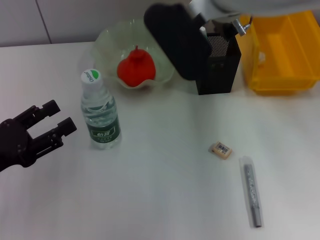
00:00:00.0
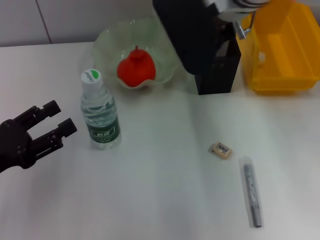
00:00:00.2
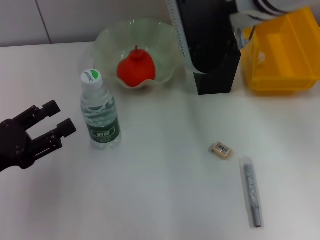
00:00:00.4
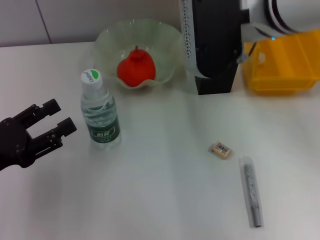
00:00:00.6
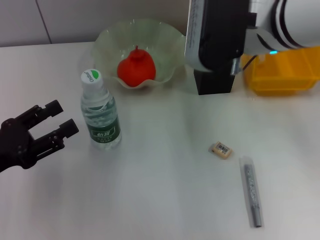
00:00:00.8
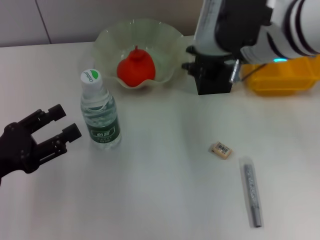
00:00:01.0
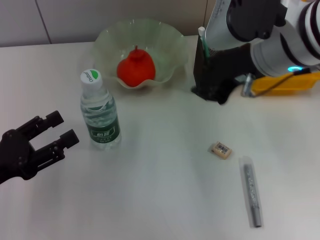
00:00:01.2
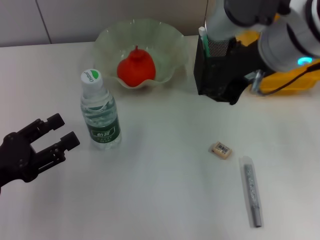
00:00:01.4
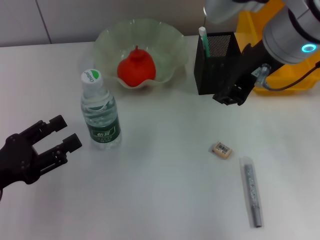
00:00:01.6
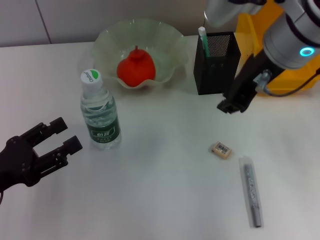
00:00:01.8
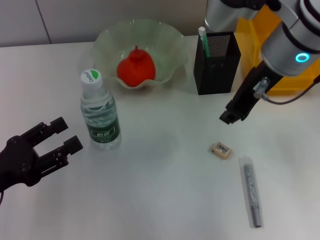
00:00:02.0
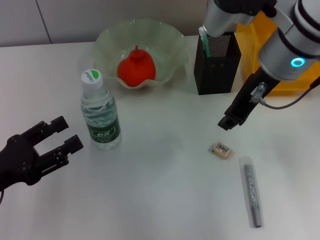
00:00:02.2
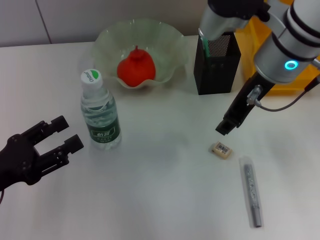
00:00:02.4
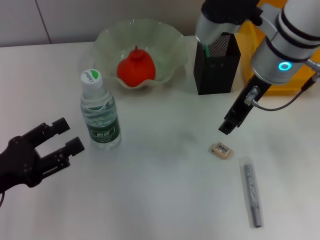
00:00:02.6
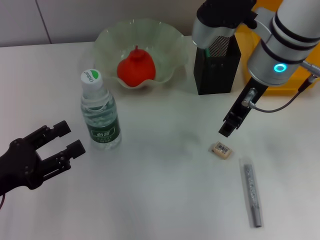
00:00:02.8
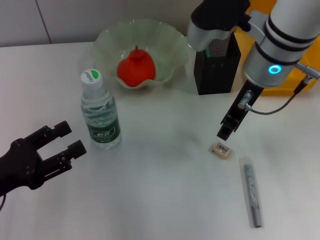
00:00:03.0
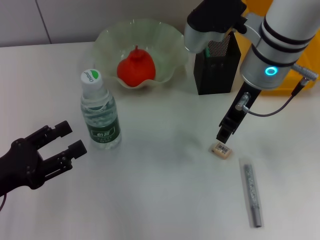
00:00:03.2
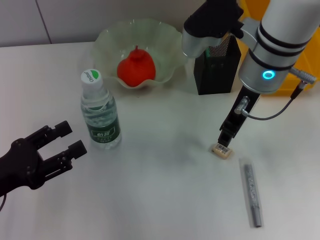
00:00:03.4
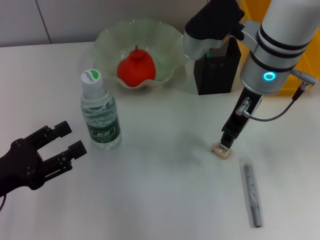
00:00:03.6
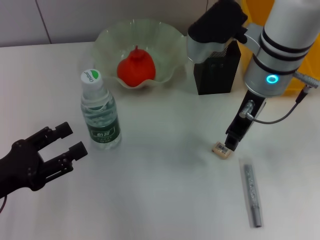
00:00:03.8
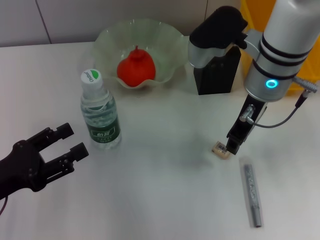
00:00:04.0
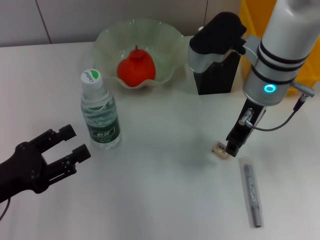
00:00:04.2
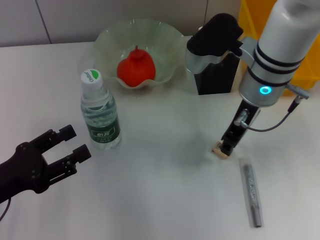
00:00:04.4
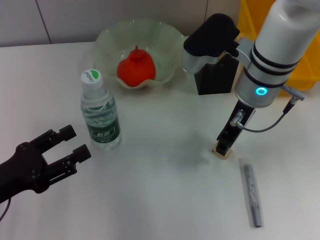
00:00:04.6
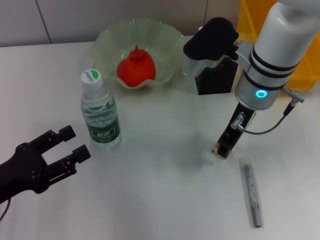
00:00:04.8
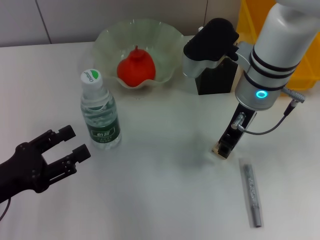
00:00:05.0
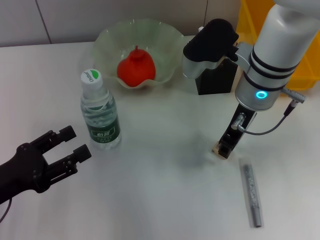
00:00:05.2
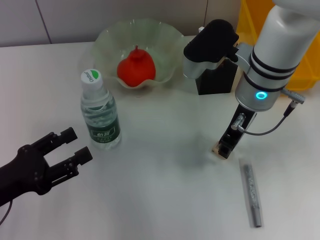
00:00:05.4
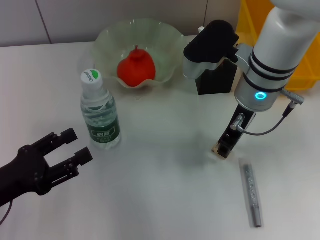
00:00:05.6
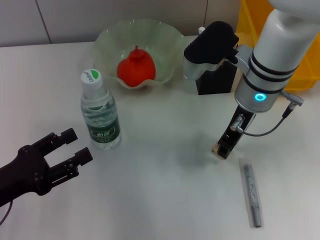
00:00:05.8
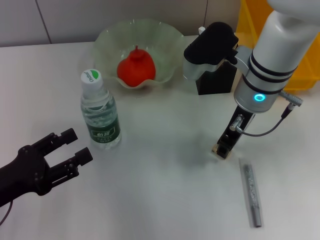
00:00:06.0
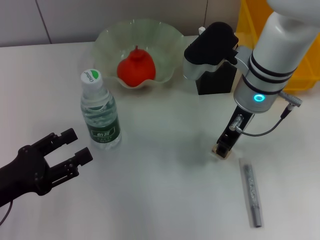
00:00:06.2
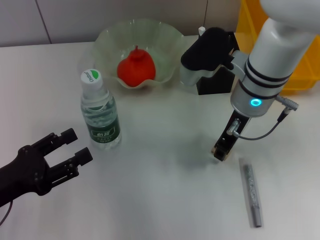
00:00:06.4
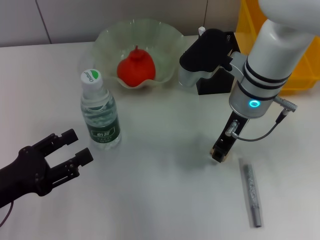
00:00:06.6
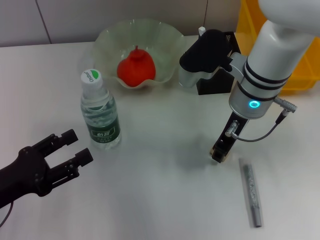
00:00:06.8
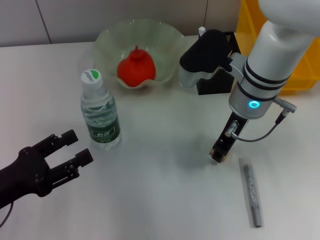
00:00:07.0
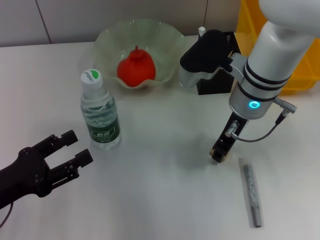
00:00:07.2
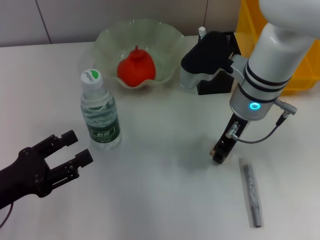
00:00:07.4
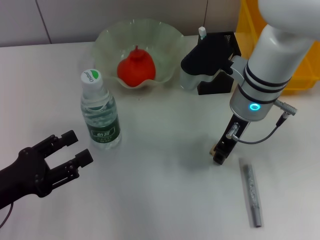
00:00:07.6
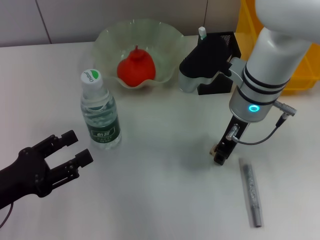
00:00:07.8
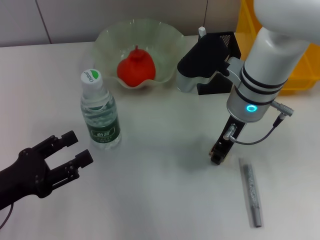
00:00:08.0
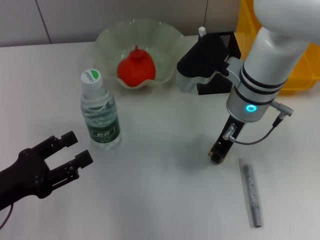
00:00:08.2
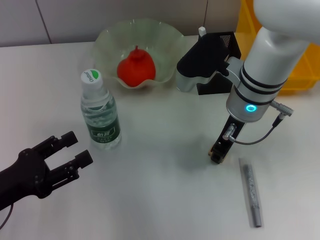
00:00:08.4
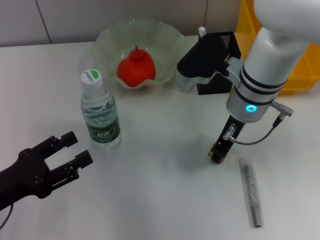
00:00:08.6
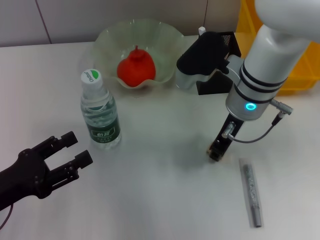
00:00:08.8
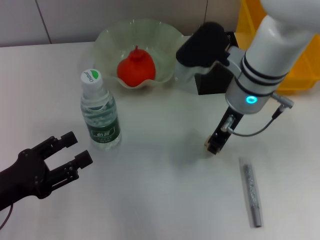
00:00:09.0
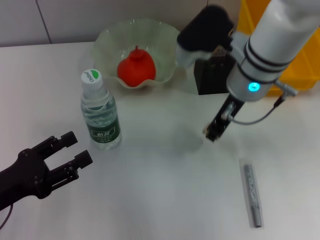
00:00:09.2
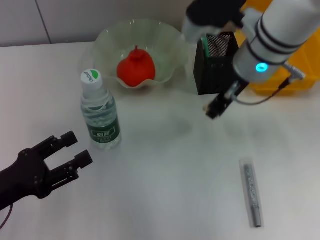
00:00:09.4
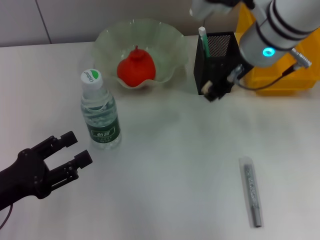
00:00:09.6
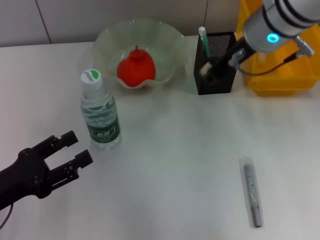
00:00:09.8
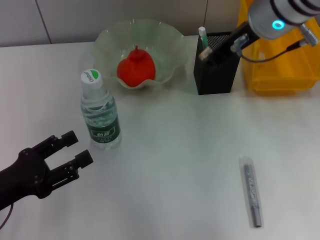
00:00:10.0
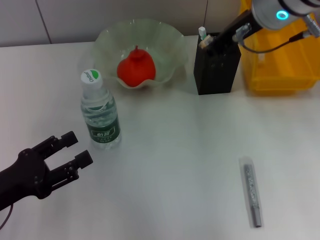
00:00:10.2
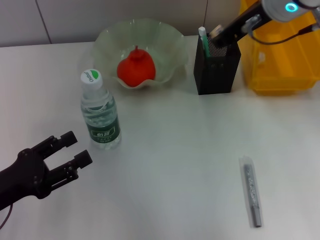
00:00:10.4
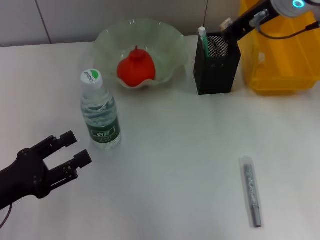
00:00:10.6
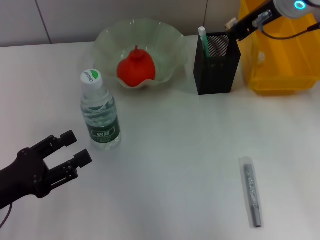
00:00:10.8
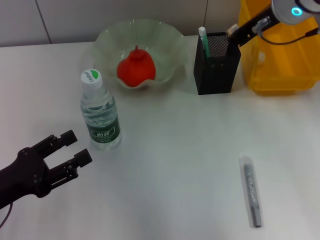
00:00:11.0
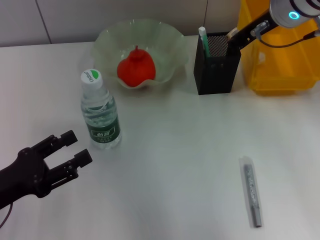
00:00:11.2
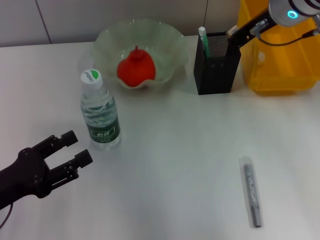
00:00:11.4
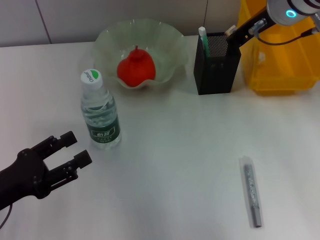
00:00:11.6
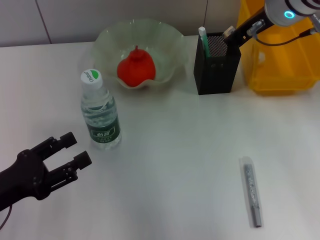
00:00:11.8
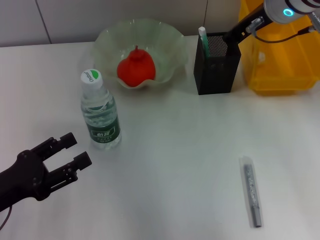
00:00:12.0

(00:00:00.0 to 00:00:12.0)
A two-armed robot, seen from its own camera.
Step, 00:00:01.0 - 00:00:07.8: Grab the eraser with the right hand.
Step, 00:00:08.0 - 00:00:11.8: Put the eraser into the pen holder with the right hand.
00:00:00.0 - 00:00:01.6: The right gripper moves backward and to the right, some 10 cm.
00:00:01.6 - 00:00:03.0: The right gripper moves downward, about 5 cm.
00:00:03.0 - 00:00:06.0: The grippers move only a little.
00:00:06.0 - 00:00:09.0: There are only small adjustments of the grippers.
00:00:09.0 - 00:00:10.4: The right gripper shifts about 10 cm upward.
00:00:10.4 - 00:00:12.0: The grippers move only a little.

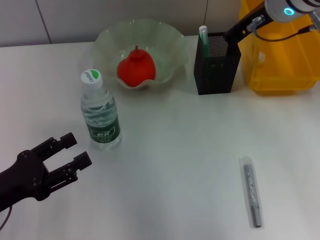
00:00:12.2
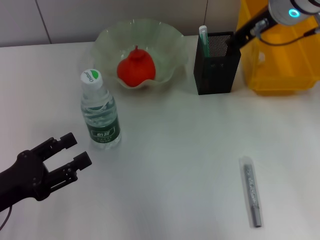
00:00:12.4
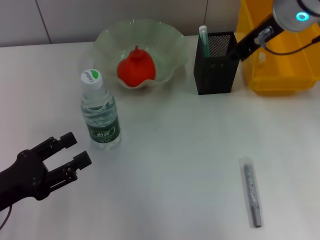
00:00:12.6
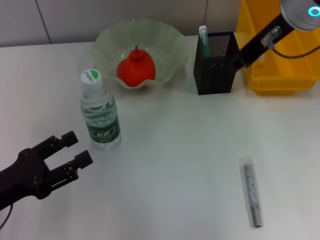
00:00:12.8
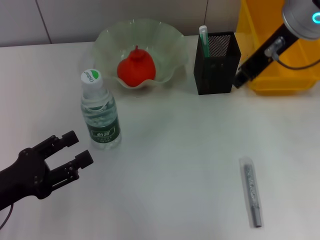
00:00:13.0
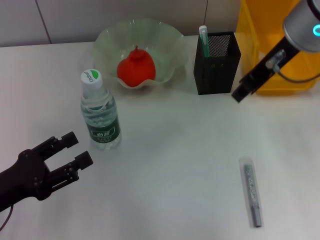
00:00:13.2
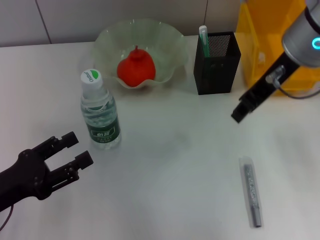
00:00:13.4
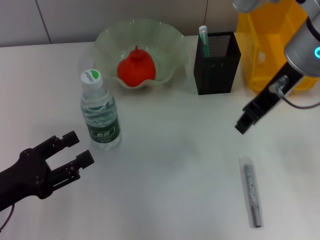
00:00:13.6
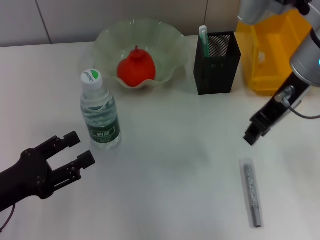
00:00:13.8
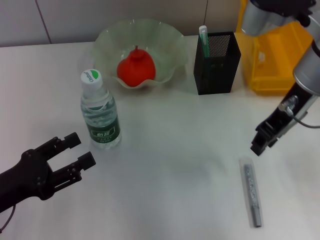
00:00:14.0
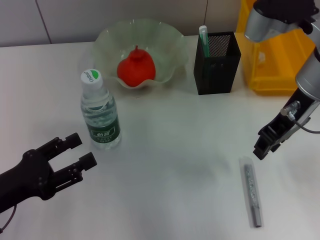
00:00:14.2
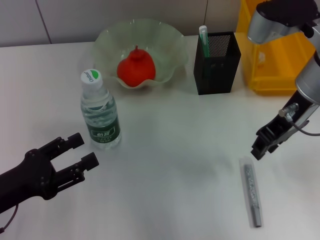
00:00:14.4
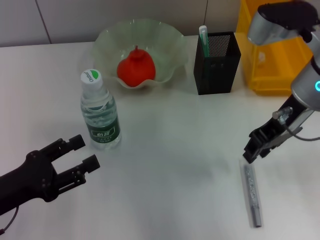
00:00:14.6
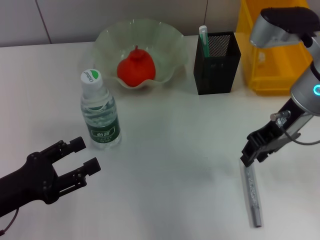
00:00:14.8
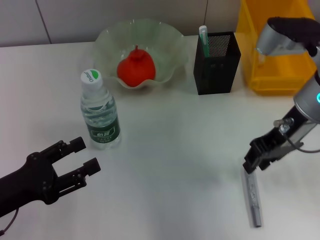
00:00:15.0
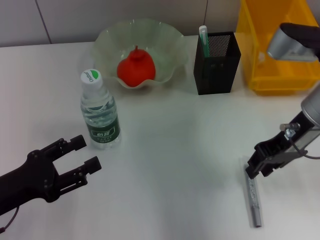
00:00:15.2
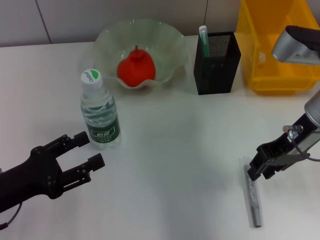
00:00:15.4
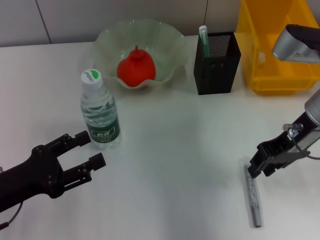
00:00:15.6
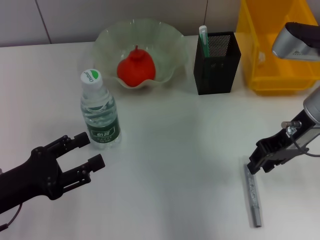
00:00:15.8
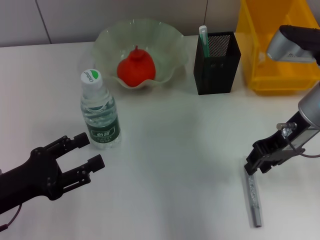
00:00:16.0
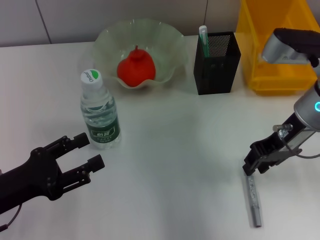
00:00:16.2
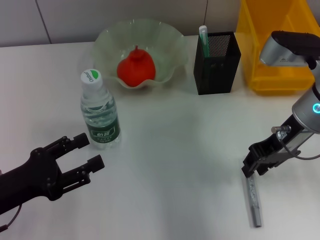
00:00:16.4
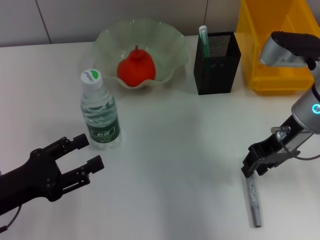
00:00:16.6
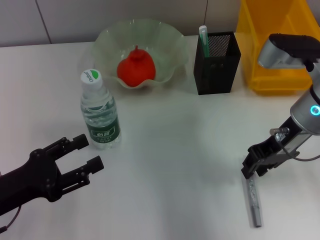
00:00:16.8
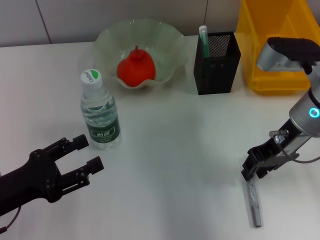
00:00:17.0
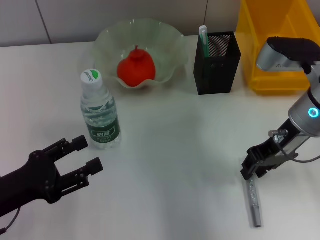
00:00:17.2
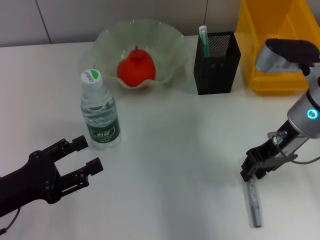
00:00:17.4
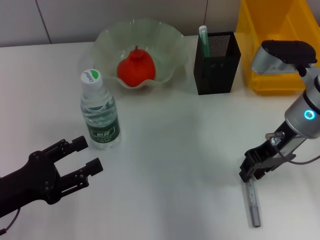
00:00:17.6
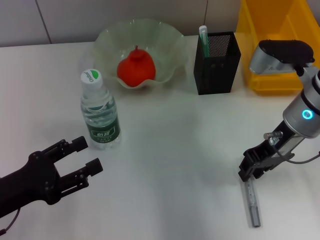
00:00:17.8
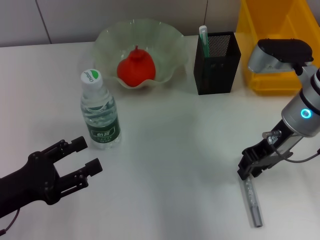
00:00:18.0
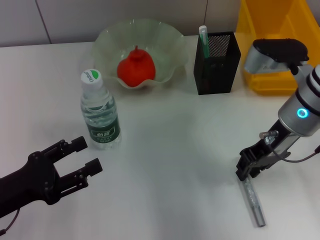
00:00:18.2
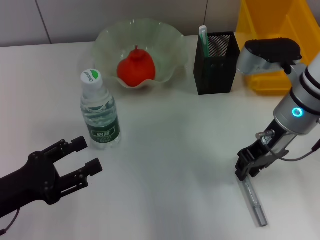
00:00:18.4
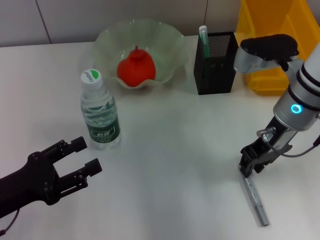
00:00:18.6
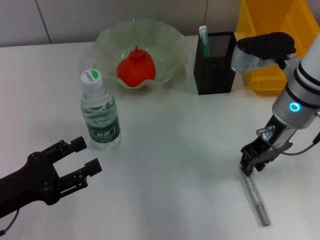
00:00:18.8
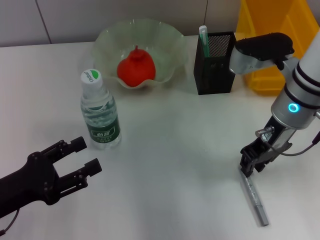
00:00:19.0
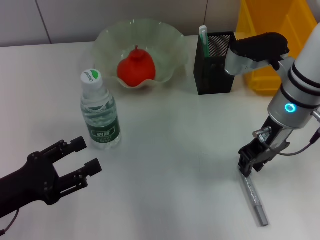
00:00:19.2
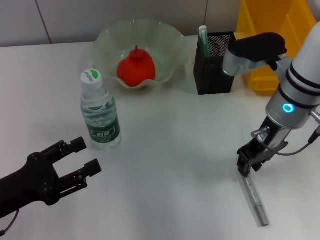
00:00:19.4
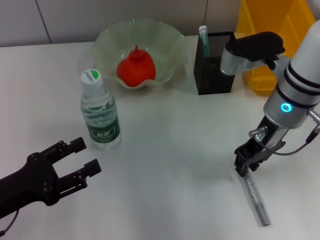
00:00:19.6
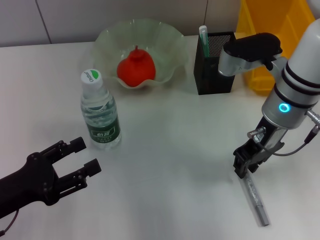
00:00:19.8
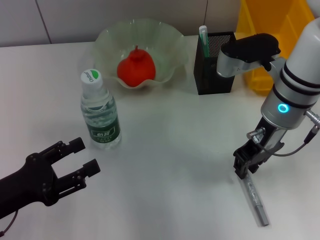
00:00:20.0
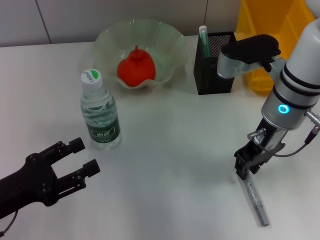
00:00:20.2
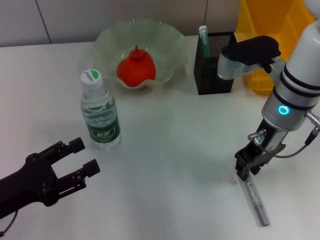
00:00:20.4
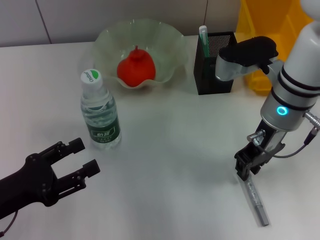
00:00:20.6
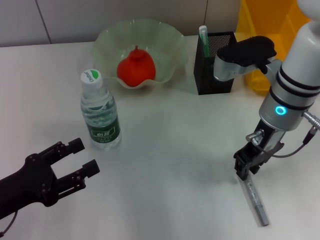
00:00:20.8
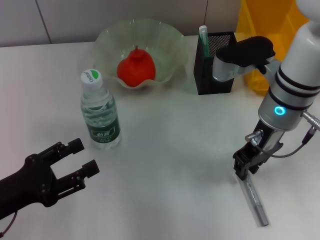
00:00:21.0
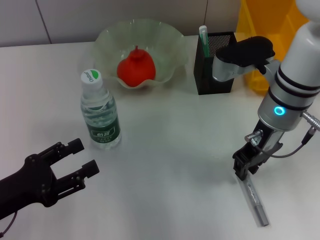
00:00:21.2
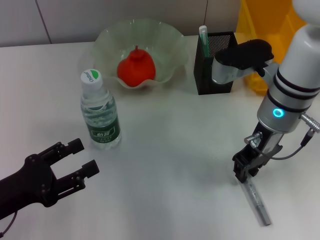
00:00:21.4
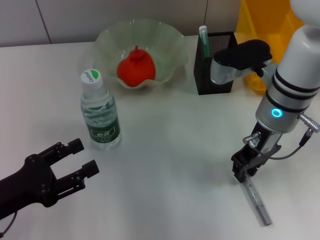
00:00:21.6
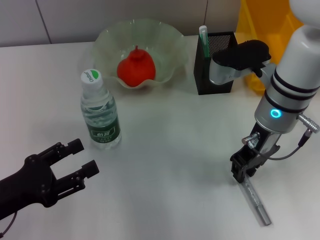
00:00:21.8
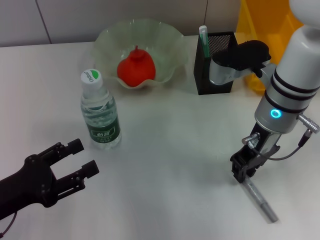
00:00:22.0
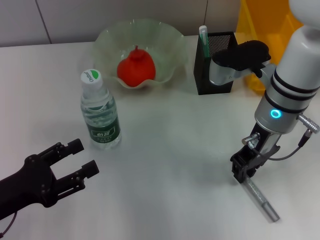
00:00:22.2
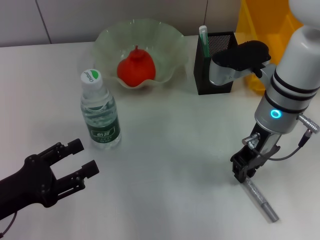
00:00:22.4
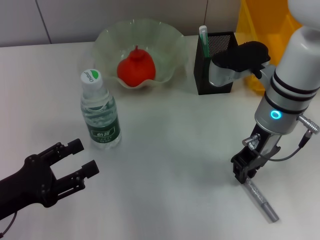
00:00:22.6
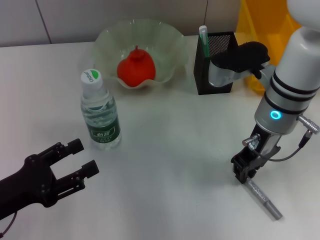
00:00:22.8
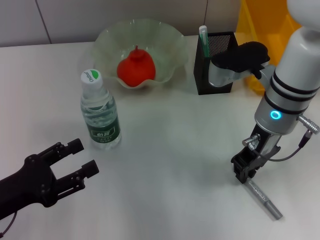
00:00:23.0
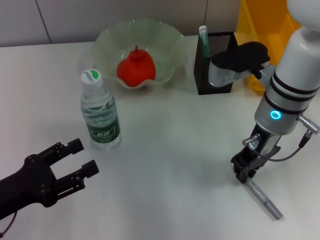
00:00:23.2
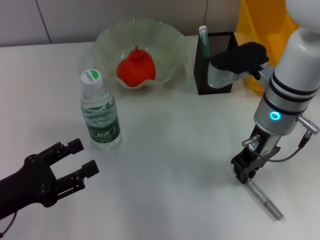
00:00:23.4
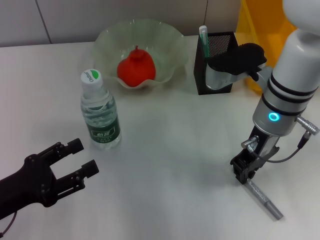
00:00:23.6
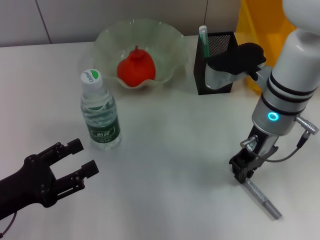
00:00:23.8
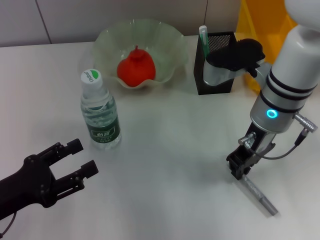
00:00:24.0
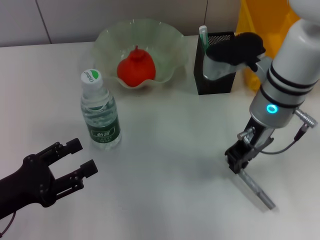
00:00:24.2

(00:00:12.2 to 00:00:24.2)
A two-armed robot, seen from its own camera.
Step, 00:00:12.2 - 00:00:23.2: Grab the gray glue with the right hand.
00:00:12.2 - 00:00:13.8: The right gripper moves backward, about 10 cm.
00:00:13.8 - 00:00:15.2: The right gripper heads downward, covering some 5 cm.
00:00:15.2 - 00:00:19.8: The grippers stay close to where they were, moving slightly.
00:00:19.8 - 00:00:22.6: Both grippers stay about where they are.
00:00:22.6 - 00:00:24.2: The grippers move only a little.
